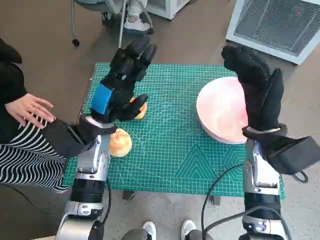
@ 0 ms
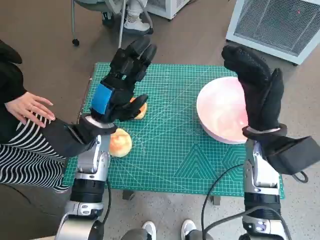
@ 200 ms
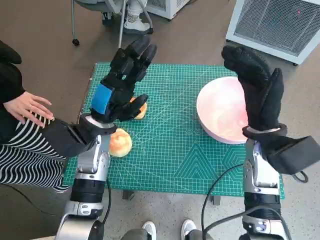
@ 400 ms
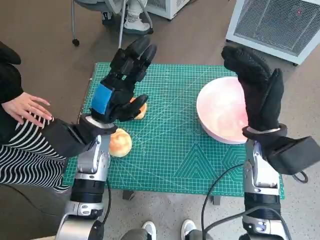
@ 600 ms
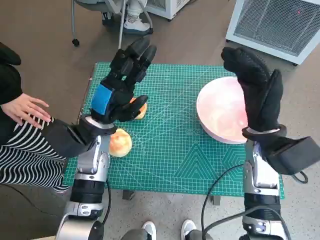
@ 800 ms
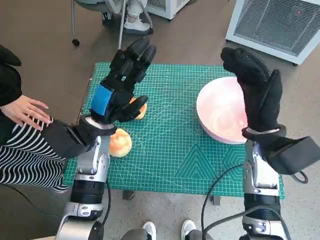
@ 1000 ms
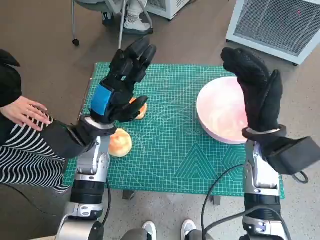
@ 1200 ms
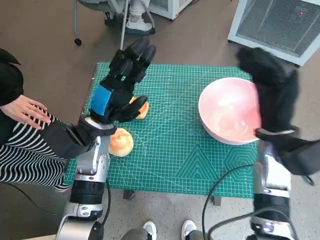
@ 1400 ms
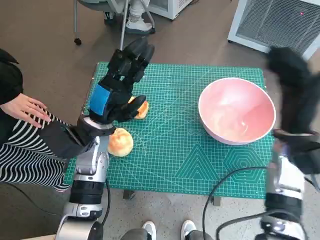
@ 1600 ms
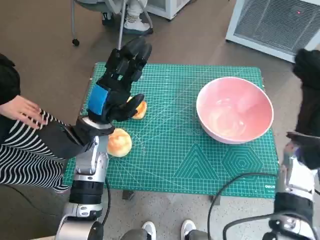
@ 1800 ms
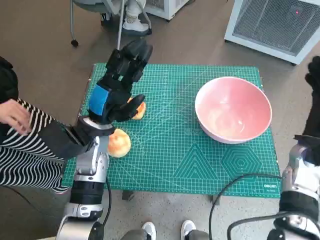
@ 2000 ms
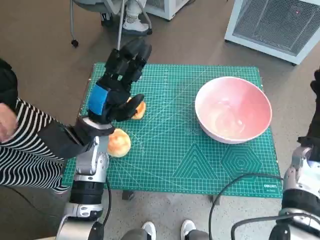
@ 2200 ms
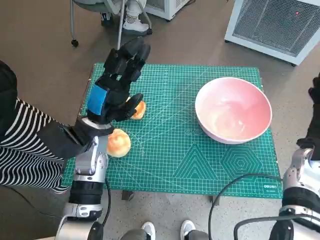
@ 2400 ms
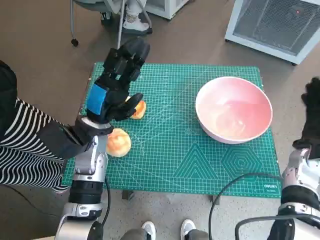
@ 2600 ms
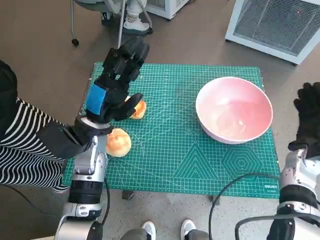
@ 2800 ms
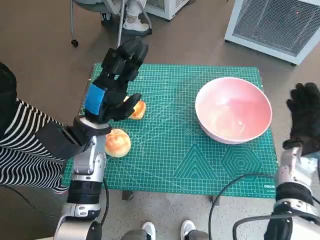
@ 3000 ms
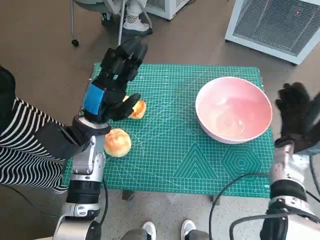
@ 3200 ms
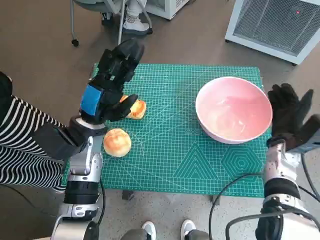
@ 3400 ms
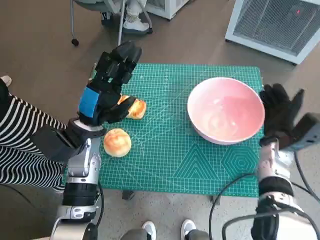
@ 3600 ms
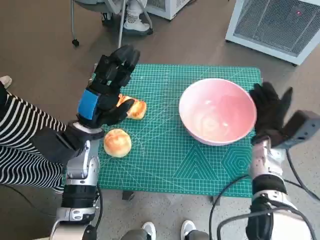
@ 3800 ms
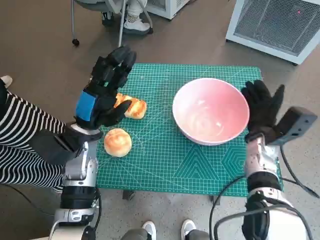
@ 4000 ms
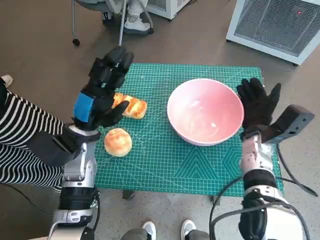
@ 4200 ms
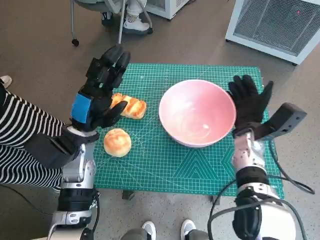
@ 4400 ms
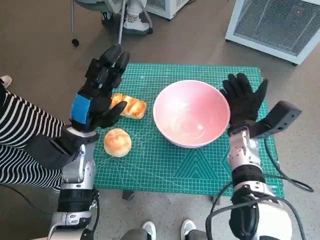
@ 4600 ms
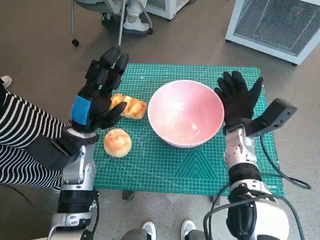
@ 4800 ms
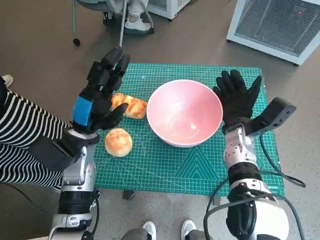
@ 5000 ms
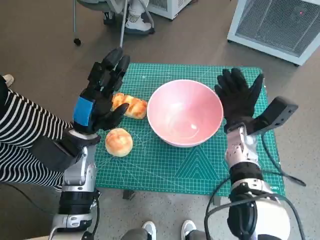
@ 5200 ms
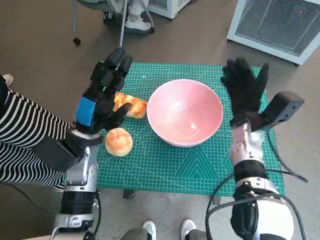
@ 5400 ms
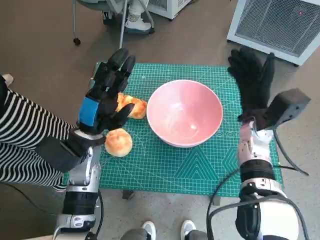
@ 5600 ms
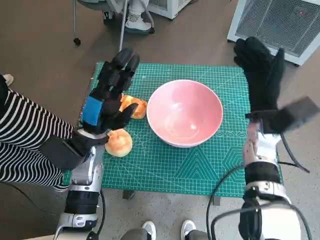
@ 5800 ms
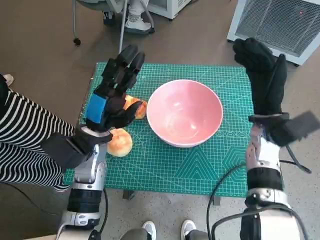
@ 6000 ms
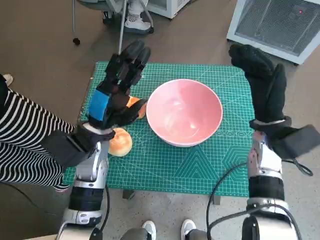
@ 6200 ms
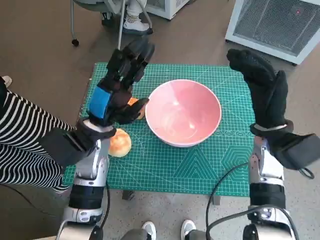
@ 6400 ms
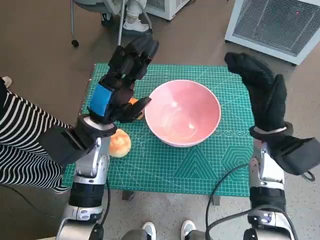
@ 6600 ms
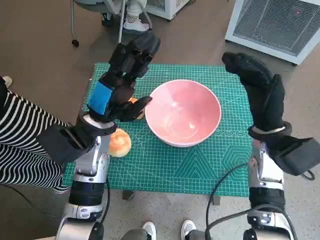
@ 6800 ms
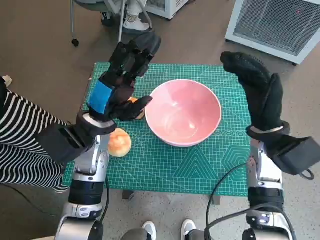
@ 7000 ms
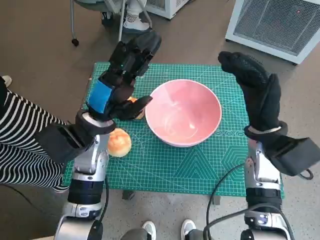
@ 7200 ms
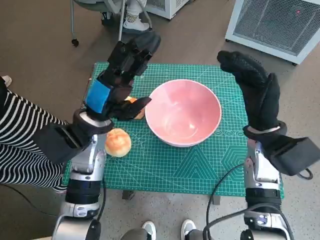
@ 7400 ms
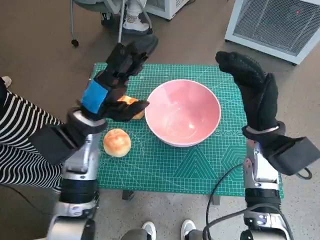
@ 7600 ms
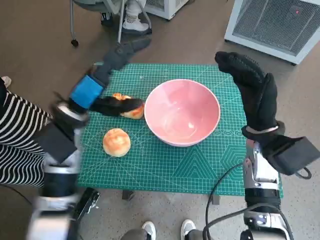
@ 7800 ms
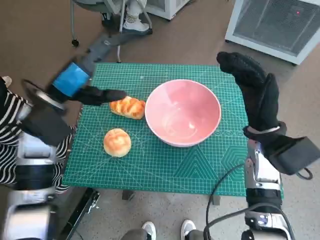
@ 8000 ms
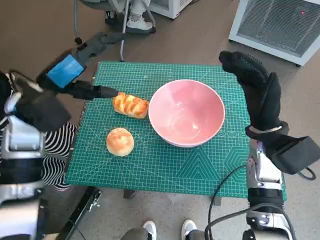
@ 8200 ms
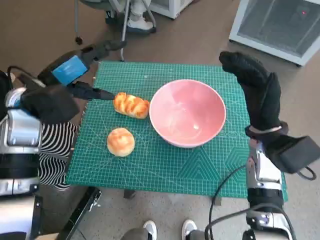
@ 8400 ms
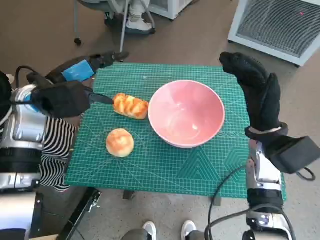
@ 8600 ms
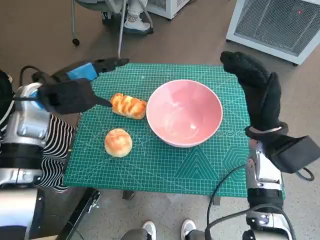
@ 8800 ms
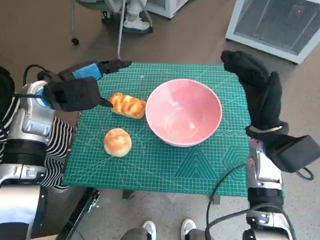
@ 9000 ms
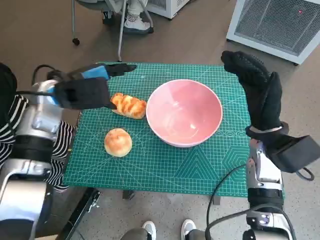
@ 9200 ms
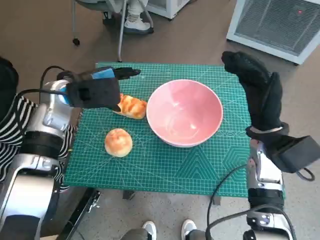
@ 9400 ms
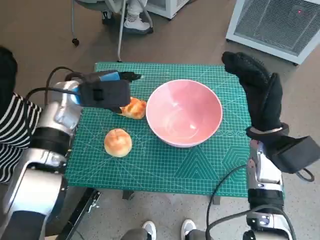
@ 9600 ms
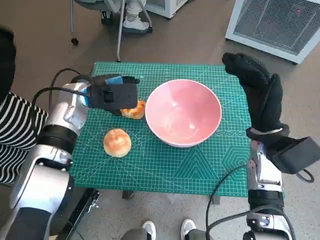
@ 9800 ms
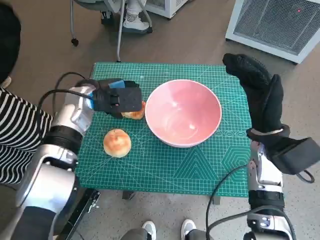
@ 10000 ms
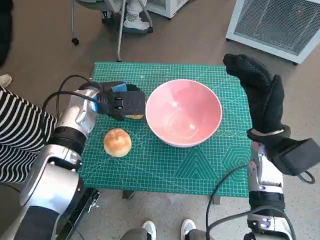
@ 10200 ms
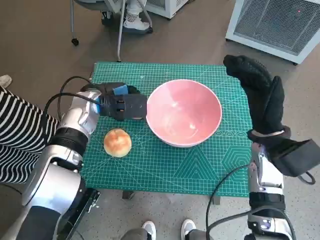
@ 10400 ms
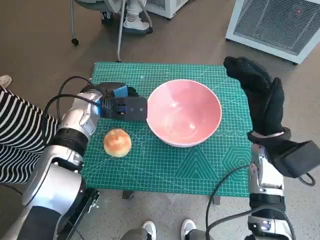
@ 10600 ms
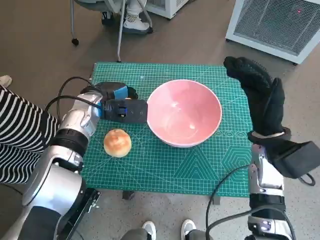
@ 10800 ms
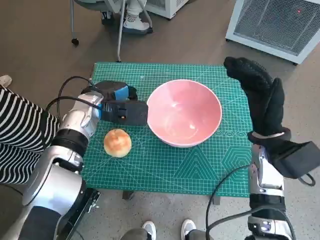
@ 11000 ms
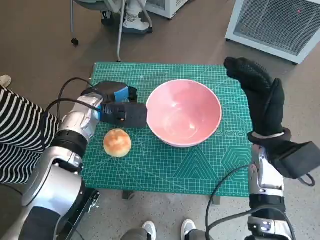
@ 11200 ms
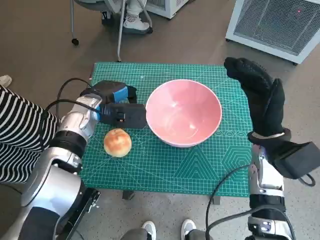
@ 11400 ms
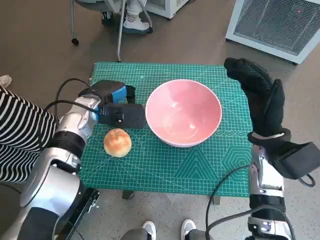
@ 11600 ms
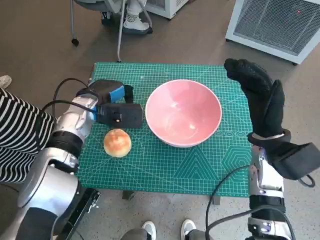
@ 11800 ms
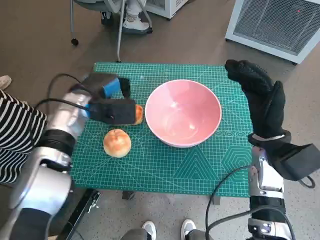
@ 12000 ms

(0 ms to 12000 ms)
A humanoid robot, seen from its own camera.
Task of the whole recording: Push the bowl into the center of the table and put the bread into the bowl.
Step, 0 ms - 5200 ms: Move the pink bowl to the center of table with right hand.
1600 ms - 3000 ms: The right hand heads downward and to the right, covering some 10 cm.
3000 ms - 4400 ms: The right hand heads to the left, covering about 10 cm.
4400 ms - 6000 ms: The right hand heads upward, covering approximately 5 cm.
7600 ms - 9000 ms: The left hand moves to the left, about 5 cm.
9000 ms - 10400 ms: The left hand heads downward and to the right, covering some 10 cm.
10400 ms - 12000 ms: The hands stay close to where they were, moving slightly.

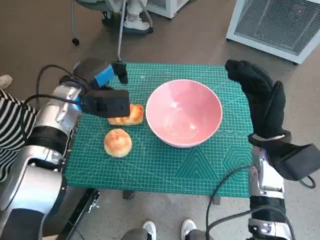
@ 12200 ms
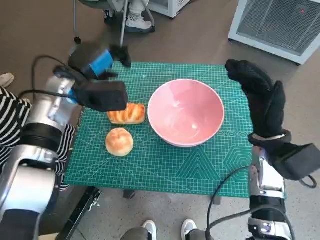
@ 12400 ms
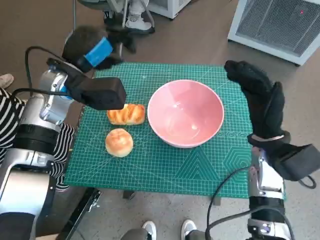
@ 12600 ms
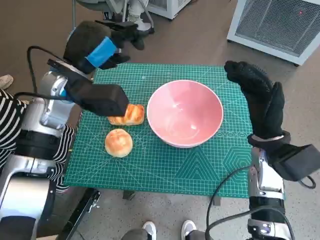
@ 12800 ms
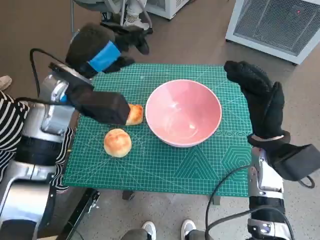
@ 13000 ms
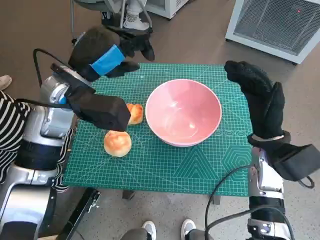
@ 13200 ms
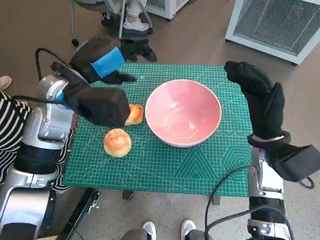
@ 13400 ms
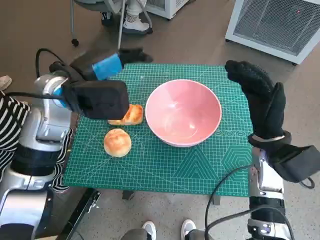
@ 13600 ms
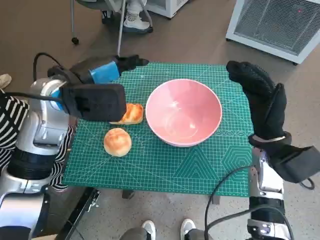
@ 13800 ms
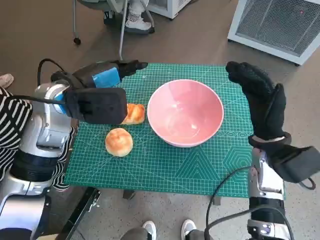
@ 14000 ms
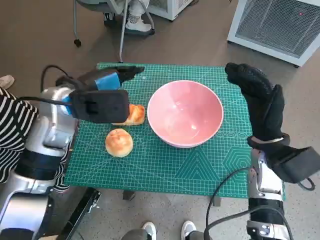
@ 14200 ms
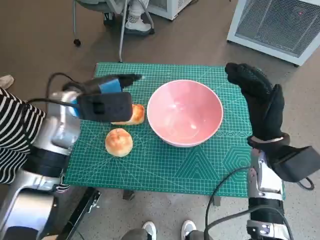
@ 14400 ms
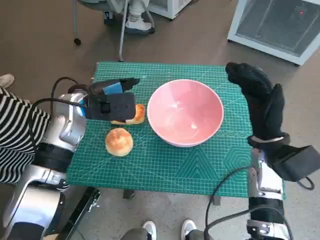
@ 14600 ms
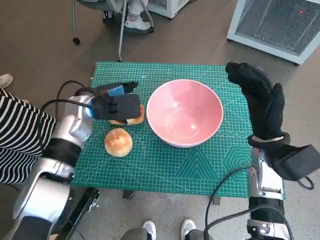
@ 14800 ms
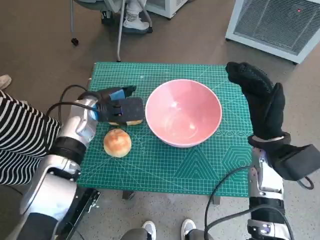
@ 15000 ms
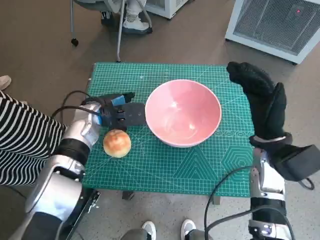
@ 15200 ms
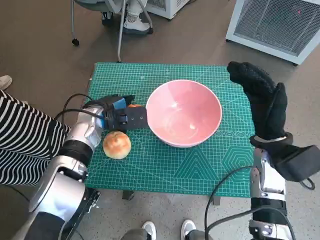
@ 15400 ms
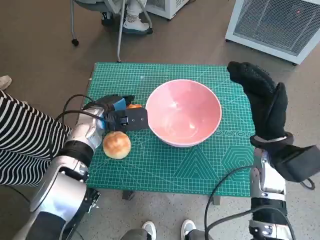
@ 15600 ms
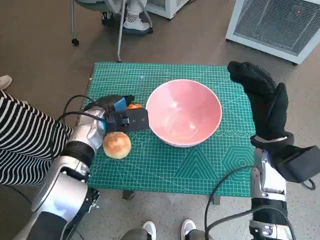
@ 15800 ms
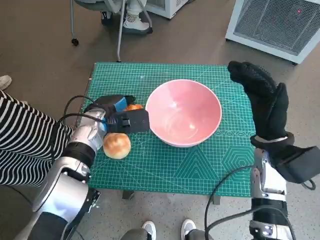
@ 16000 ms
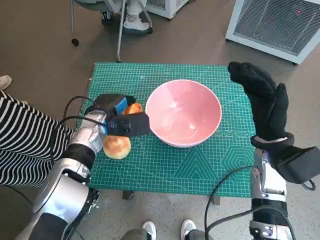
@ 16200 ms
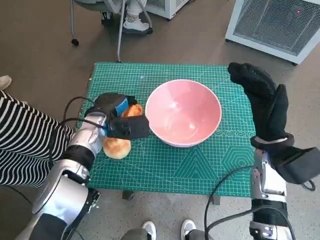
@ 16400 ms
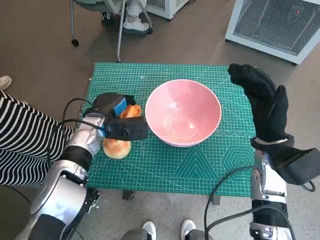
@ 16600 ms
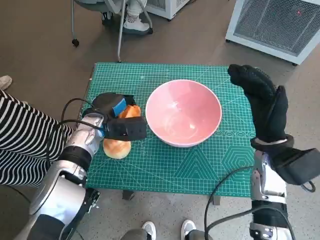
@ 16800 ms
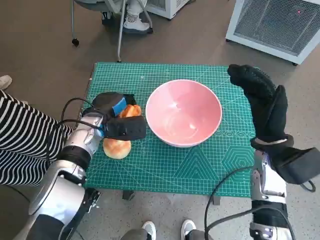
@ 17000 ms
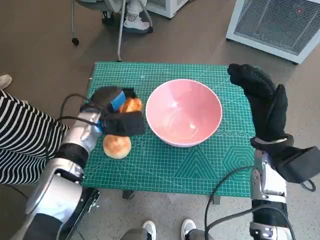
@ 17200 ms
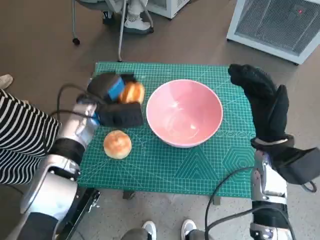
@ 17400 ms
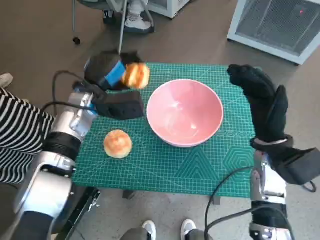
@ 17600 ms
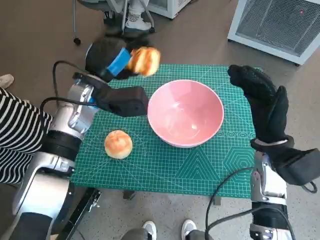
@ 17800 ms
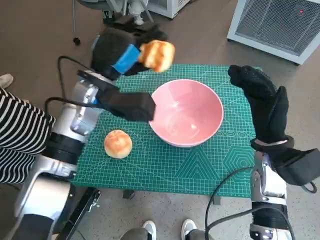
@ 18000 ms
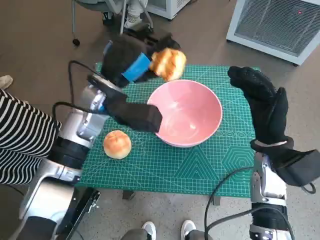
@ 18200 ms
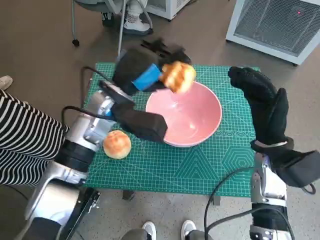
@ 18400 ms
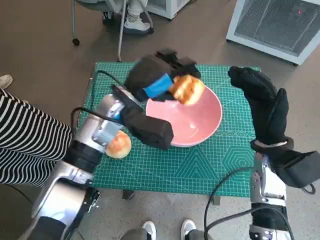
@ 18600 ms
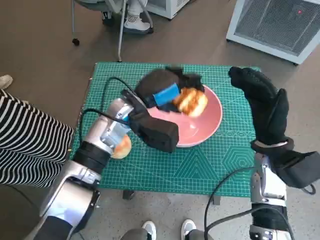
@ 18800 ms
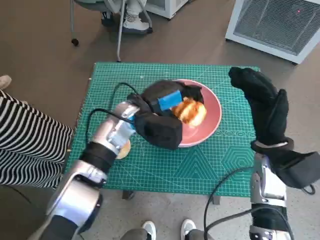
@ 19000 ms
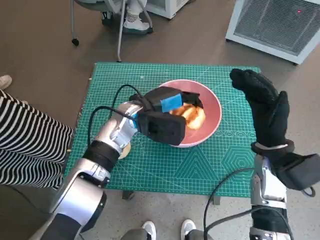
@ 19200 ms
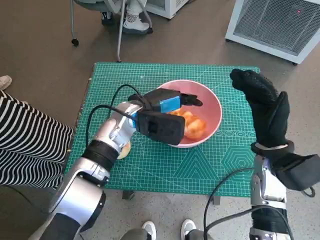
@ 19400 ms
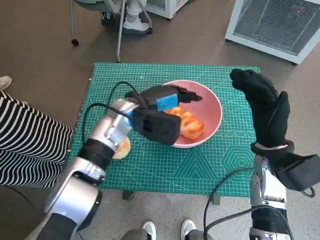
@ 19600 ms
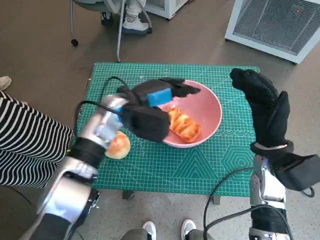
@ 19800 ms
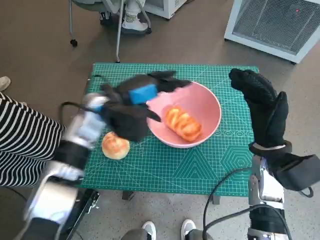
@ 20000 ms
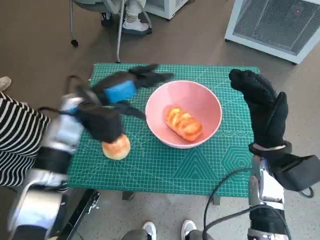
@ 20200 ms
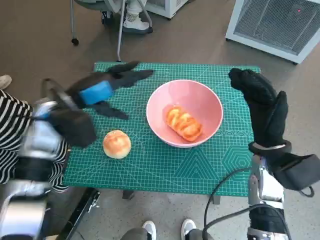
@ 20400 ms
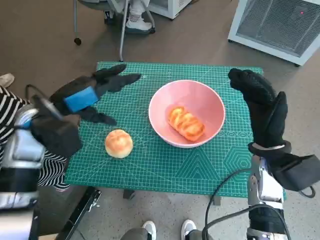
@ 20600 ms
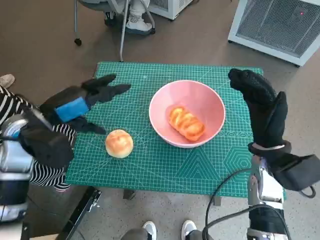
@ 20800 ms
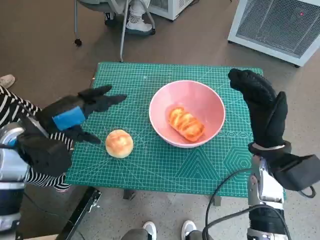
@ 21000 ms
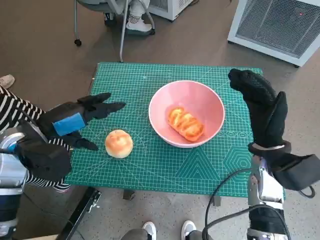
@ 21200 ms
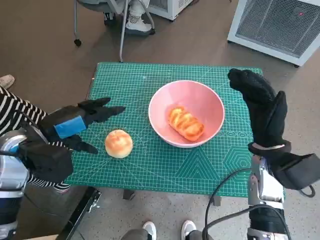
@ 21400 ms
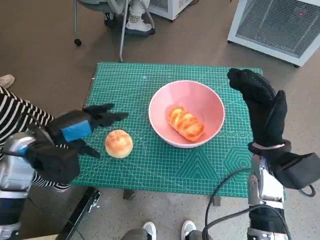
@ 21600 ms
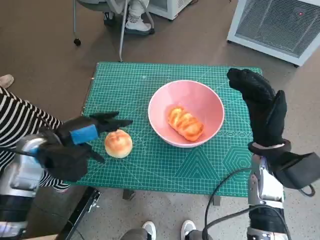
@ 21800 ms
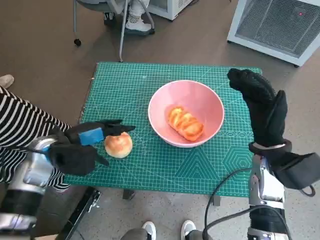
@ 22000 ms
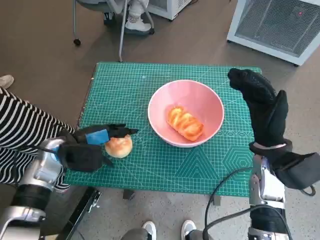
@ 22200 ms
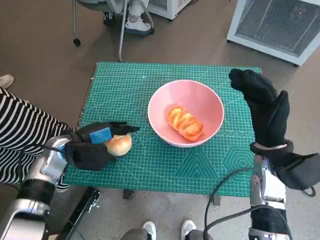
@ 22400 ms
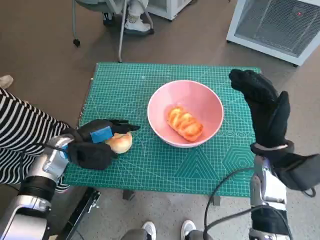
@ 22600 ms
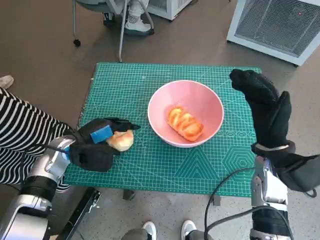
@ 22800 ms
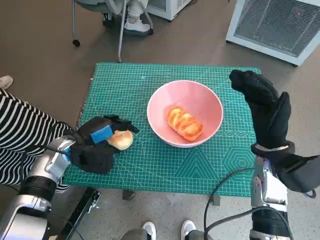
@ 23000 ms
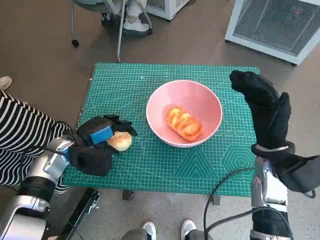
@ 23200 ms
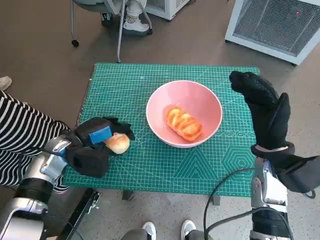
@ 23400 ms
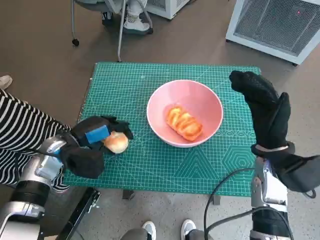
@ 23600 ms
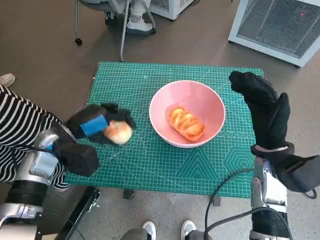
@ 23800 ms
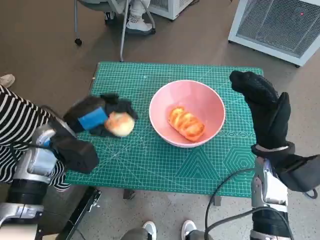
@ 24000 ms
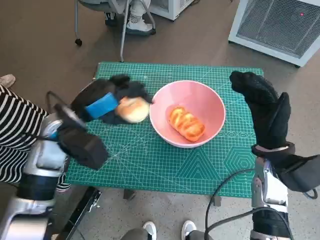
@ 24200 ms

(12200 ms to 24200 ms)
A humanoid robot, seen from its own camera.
Task of the whole recording: Push the bowl into the center of the table and put the bread into the bowl.
Step, 13200 ms - 16400 ms: Grasp the long bread with left hand.
Step, 16600 ms - 20000 ms: Place the long bread in pink bowl with left hand.
Step, 20200 ms - 23000 ms: Grasp the round bread with left hand.
12200 ms - 13800 ms: The left hand shifts some 10 cm upward.
13800 ms - 15200 ms: The left hand goes about 10 cm downward.
15200 ms - 16600 ms: There are only small adjustments of the hands.
16600 ms - 18200 ms: The left hand moves upward, some 10 cm.
18200 ms - 19800 ms: The left hand shifts by about 5 cm.
19800 ms - 21200 ms: The left hand heads to the left and backward, covering some 20 cm.
21200 ms - 22600 ms: The left hand is displaced downward by roughly 10 cm.
22600 ms - 24200 ms: The left hand is displaced upward by roughly 10 cm.
